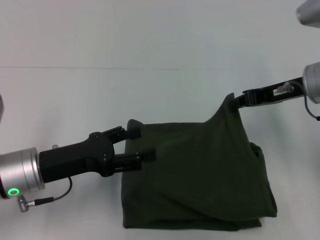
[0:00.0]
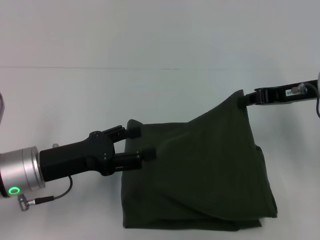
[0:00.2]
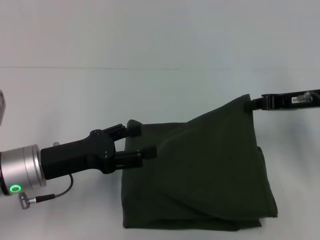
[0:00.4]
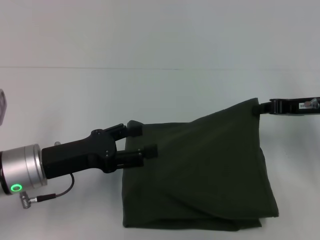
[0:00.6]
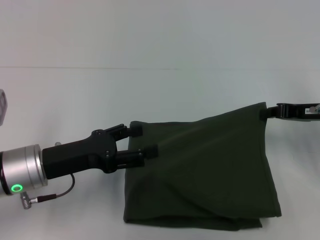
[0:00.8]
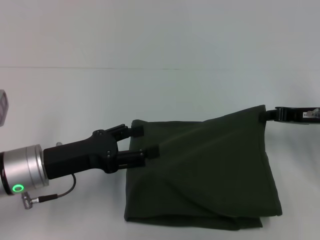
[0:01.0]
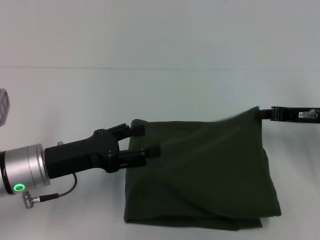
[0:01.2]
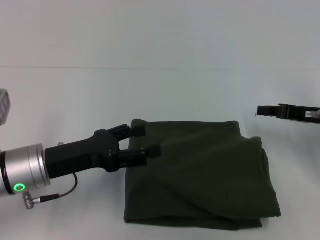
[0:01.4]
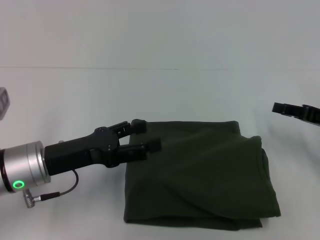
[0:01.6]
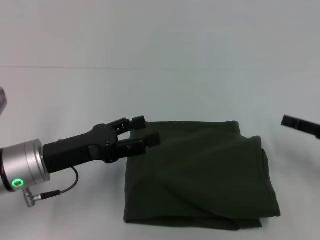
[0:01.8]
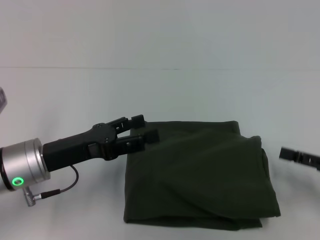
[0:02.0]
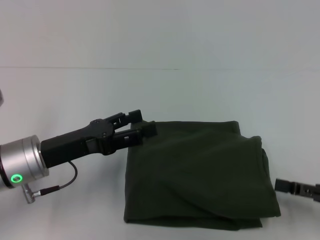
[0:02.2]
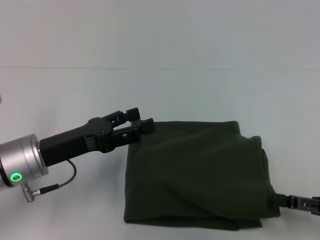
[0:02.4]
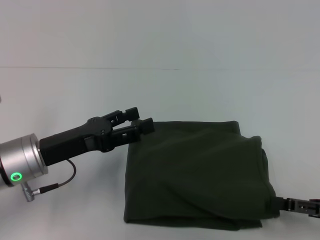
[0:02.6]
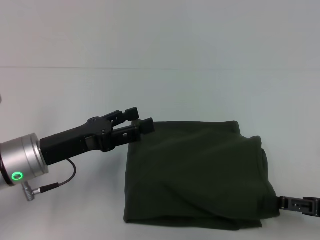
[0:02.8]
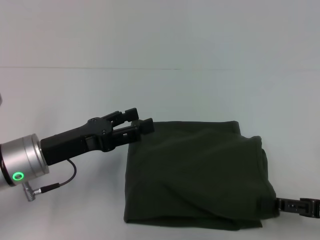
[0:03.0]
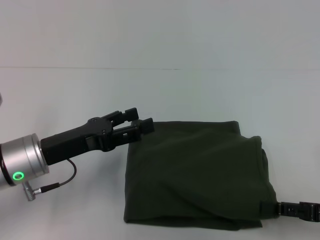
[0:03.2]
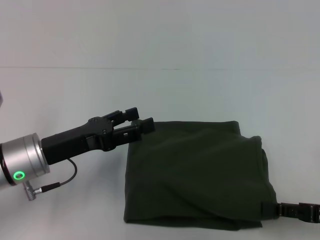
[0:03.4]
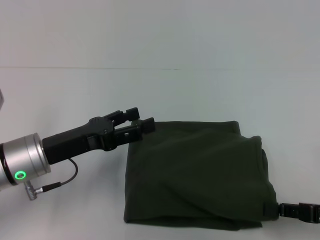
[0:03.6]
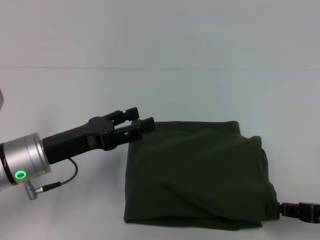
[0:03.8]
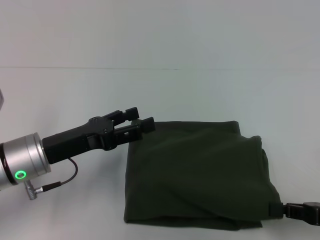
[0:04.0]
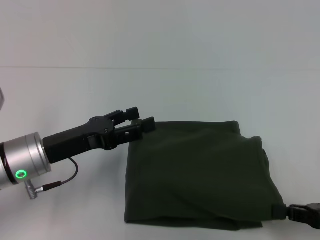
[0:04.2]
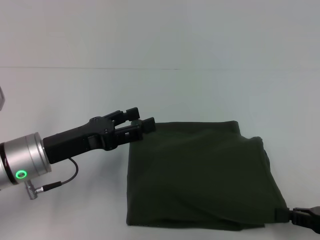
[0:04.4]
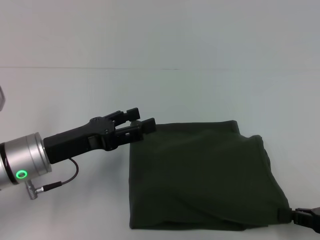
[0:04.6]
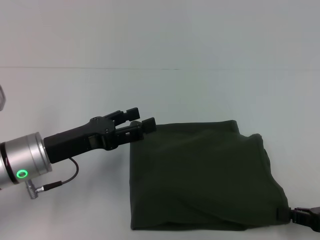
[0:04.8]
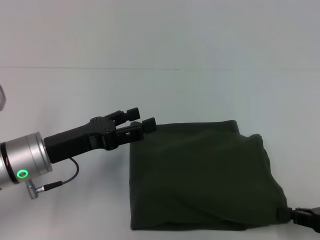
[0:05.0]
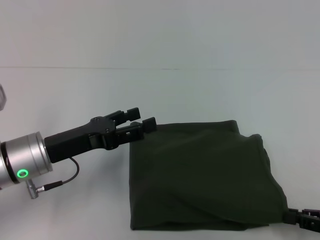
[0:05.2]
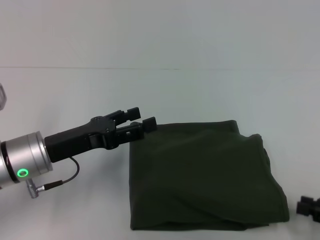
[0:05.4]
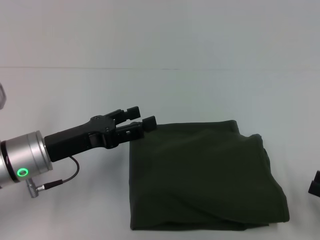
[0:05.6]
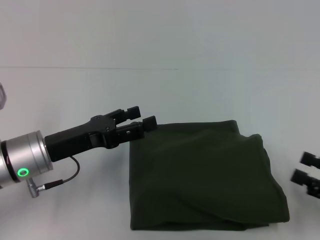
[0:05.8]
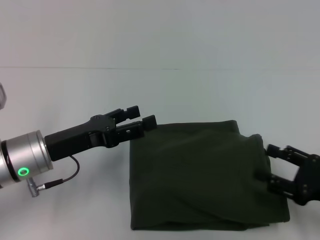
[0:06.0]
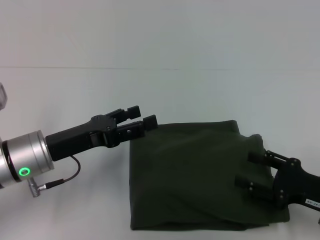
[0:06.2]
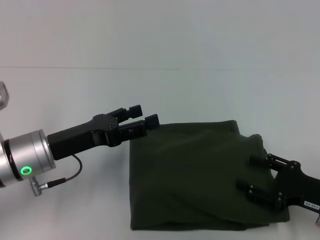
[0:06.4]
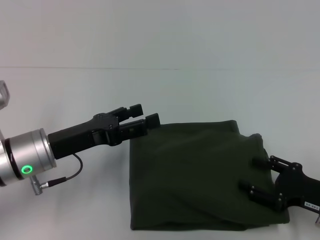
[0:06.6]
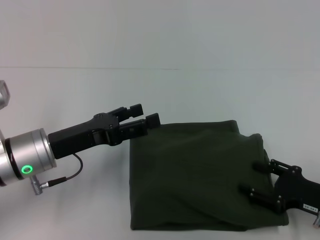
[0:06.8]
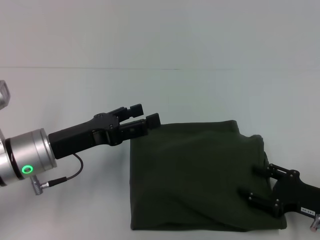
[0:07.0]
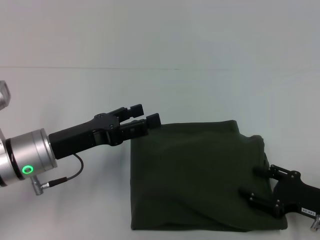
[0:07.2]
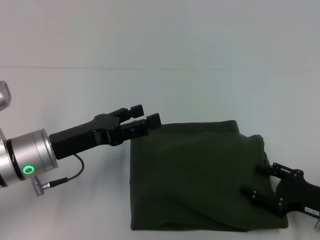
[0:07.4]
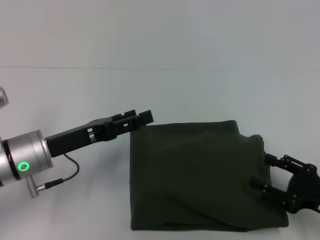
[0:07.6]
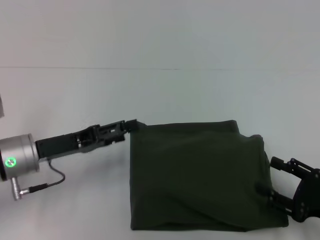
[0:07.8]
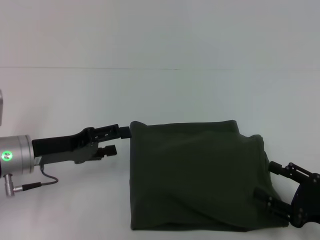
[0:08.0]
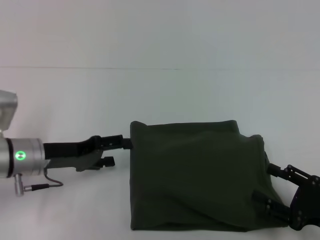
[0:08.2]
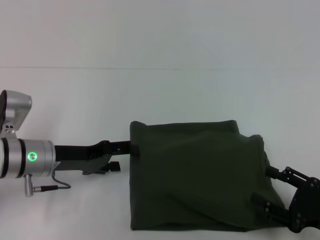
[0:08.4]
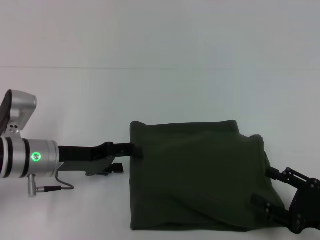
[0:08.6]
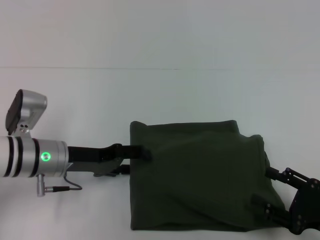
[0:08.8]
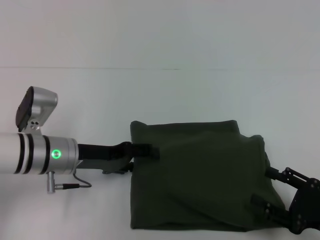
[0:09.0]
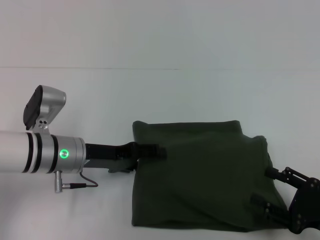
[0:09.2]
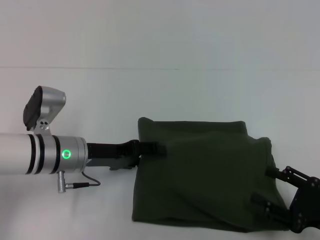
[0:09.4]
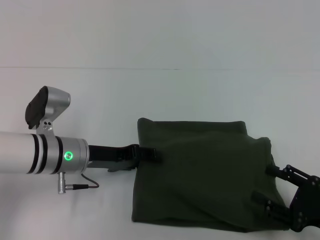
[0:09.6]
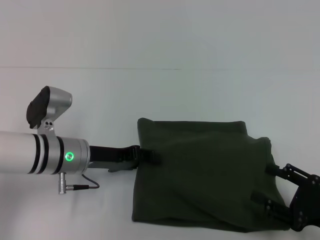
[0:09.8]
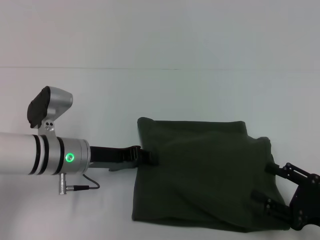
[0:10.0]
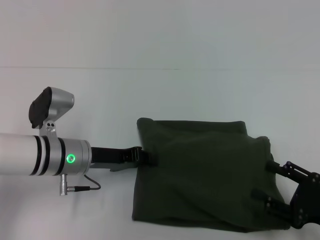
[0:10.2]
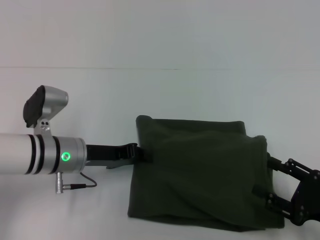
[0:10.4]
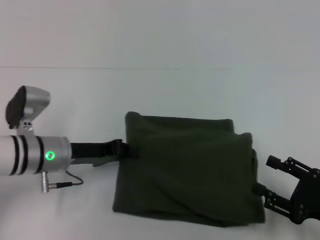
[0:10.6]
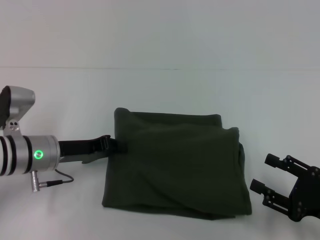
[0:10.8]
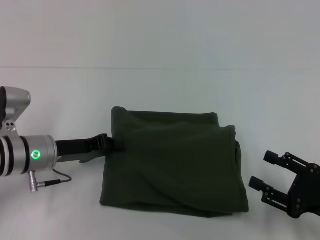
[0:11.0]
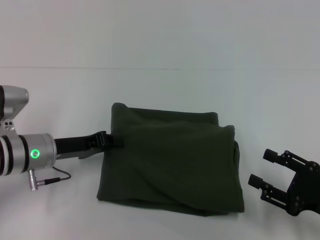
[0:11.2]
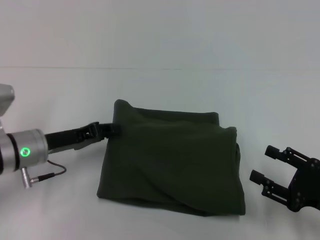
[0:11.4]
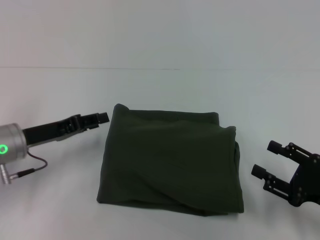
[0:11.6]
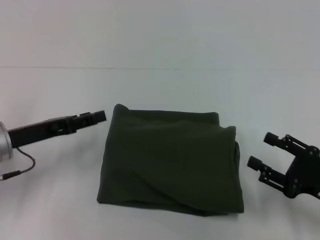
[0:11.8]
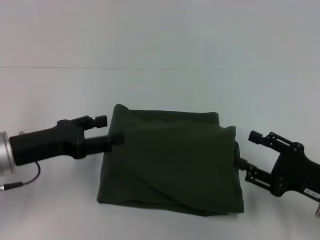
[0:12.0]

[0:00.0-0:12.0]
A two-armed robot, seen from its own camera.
0:00.0 to 0:01.6: The right gripper moves to the right and downward, some 15 cm.
0:01.6 to 0:03.0: The right gripper heads backward, covering about 10 cm, and opens.
0:03.0 to 0:04.4: The right gripper closes its fingers.
0:04.4 to 0:06.0: The right gripper opens its fingers.
0:06.0 to 0:07.6: The grippers stay close to where they were, moving slightly.
0:09.0 to 0:10.4: The left gripper closes its fingers.
0:10.4 to 0:12.0: The left gripper heads to the left, covering roughly 10 cm, and opens.

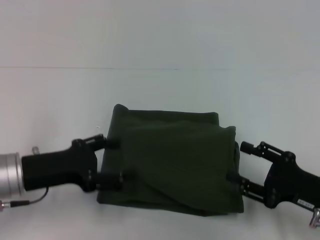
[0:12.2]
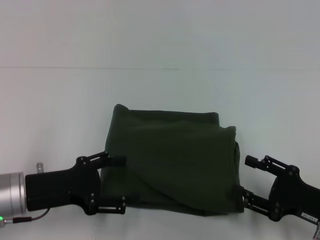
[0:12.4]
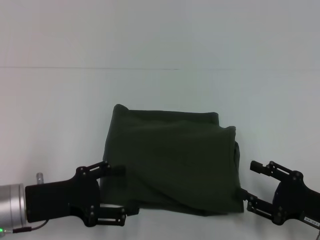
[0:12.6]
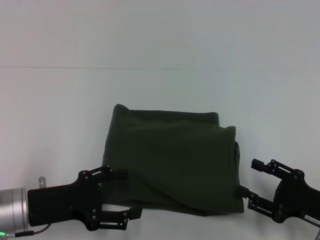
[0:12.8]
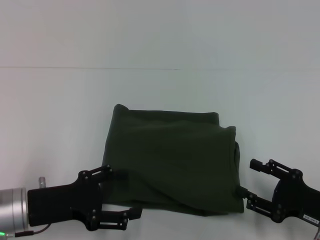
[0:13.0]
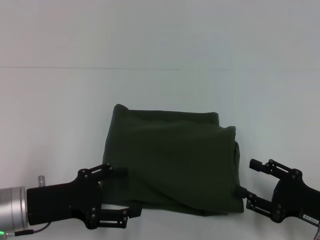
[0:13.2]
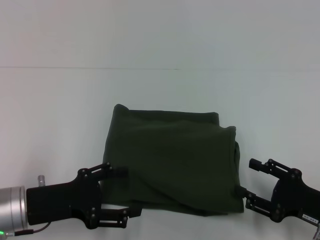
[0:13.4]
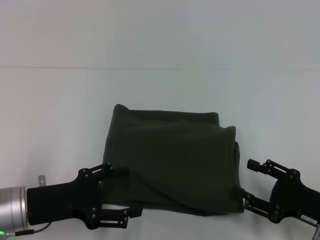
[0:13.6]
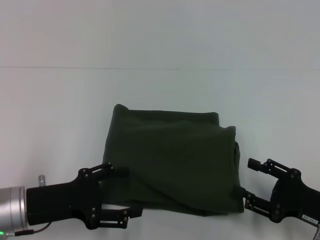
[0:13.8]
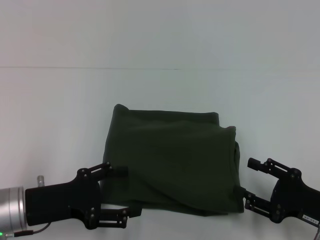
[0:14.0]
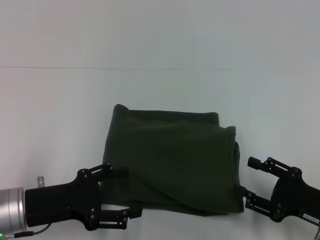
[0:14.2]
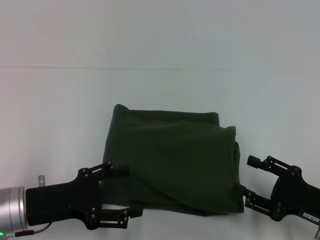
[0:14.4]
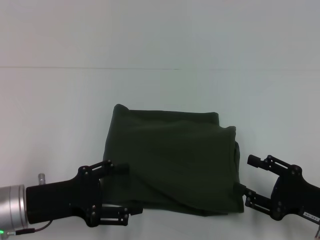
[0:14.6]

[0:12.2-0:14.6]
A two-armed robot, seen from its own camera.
0:12.2 to 0:13.4: The grippers move only a little.
0:13.4 to 0:14.6: The two grippers keep their place.

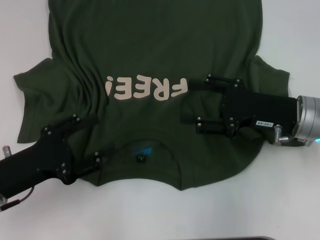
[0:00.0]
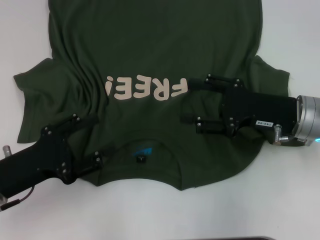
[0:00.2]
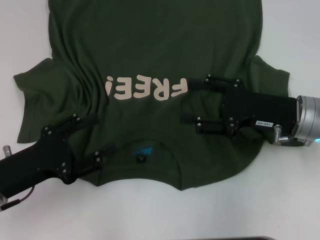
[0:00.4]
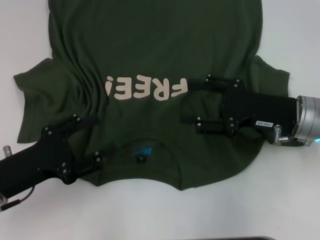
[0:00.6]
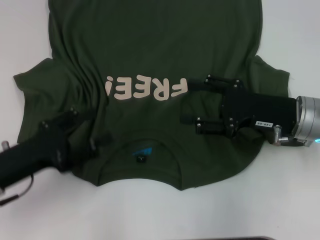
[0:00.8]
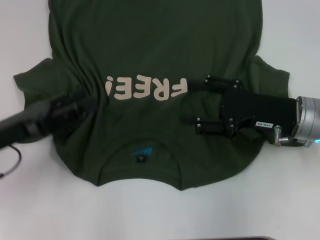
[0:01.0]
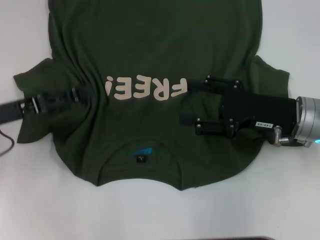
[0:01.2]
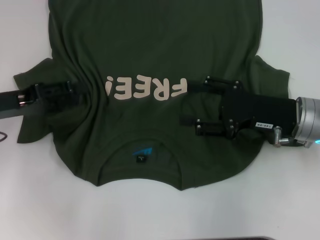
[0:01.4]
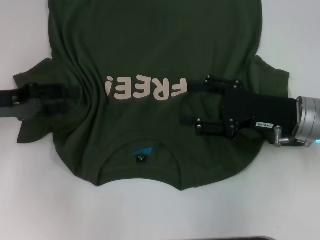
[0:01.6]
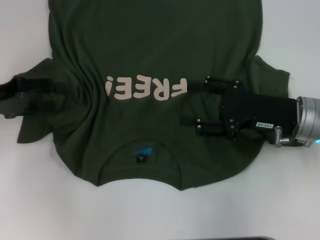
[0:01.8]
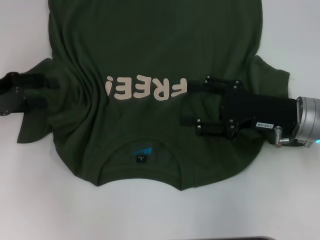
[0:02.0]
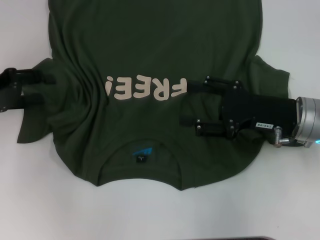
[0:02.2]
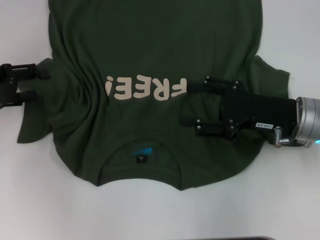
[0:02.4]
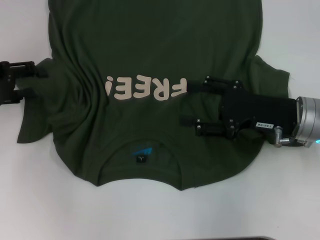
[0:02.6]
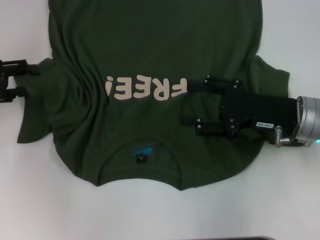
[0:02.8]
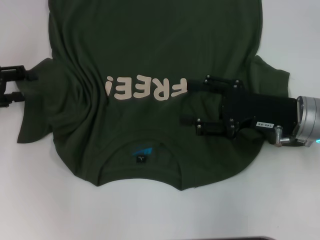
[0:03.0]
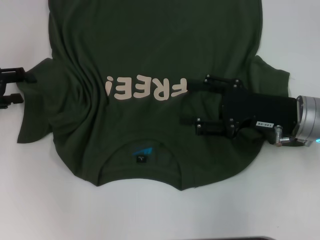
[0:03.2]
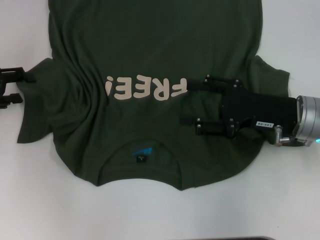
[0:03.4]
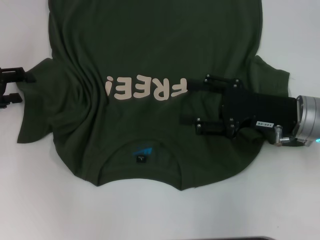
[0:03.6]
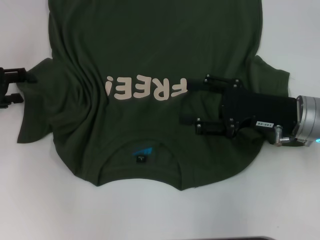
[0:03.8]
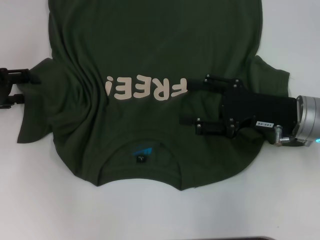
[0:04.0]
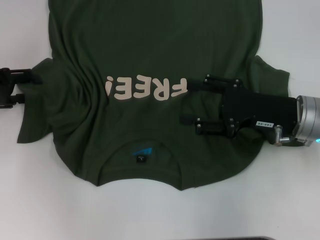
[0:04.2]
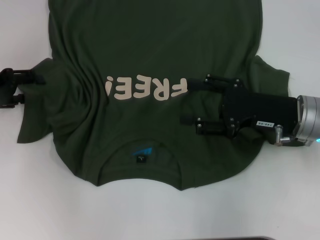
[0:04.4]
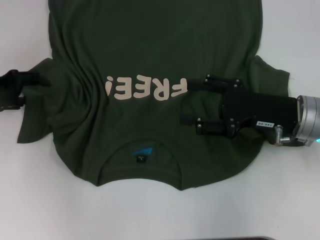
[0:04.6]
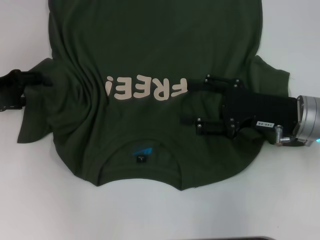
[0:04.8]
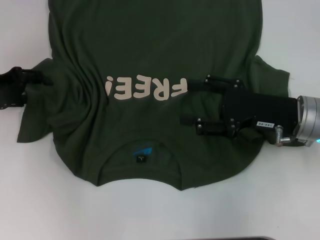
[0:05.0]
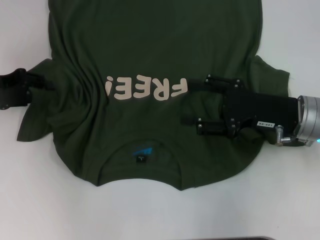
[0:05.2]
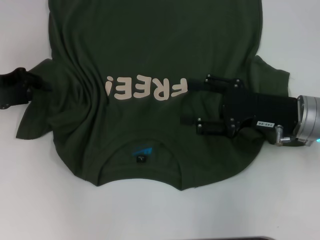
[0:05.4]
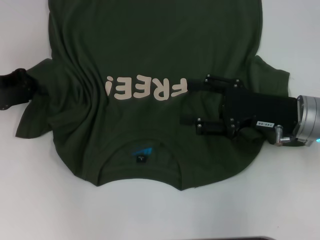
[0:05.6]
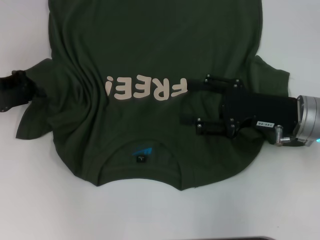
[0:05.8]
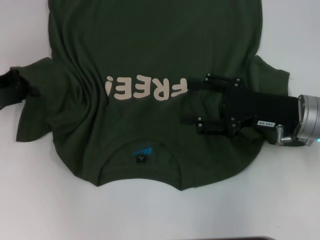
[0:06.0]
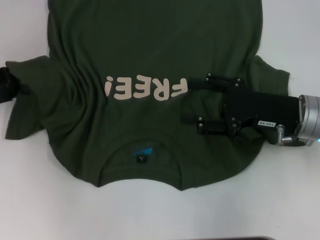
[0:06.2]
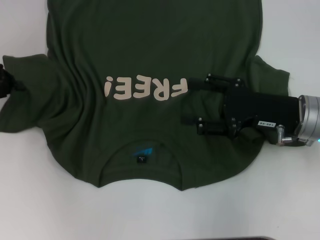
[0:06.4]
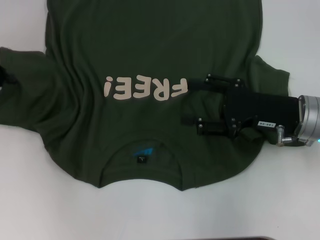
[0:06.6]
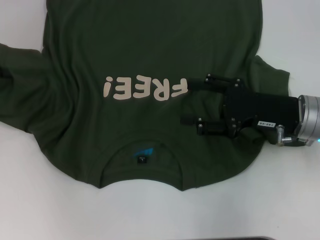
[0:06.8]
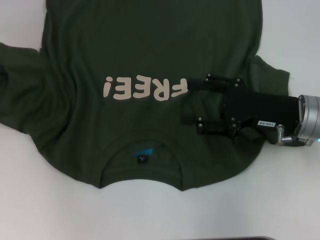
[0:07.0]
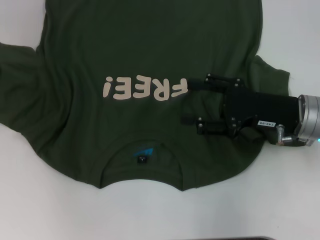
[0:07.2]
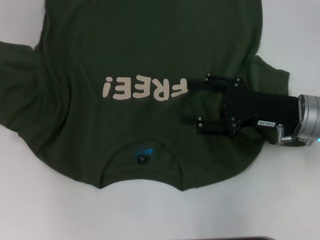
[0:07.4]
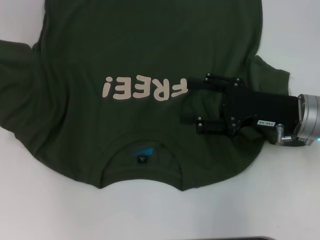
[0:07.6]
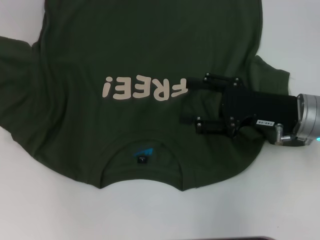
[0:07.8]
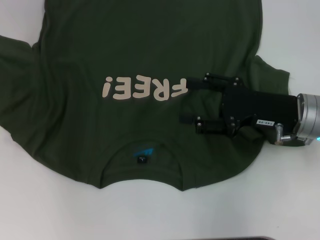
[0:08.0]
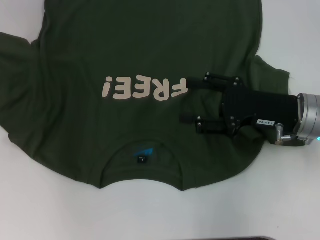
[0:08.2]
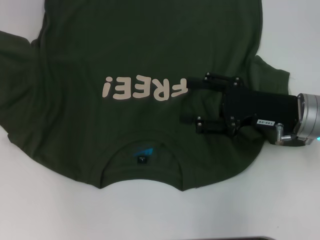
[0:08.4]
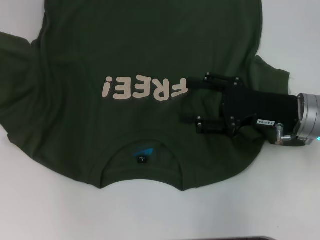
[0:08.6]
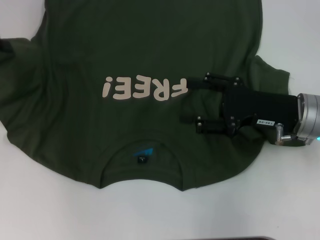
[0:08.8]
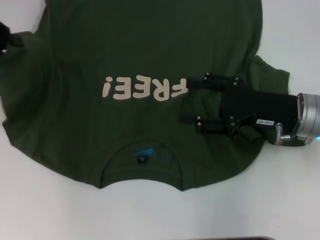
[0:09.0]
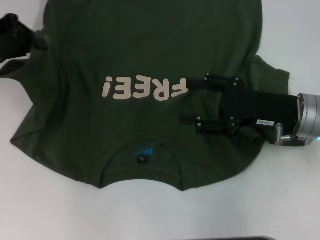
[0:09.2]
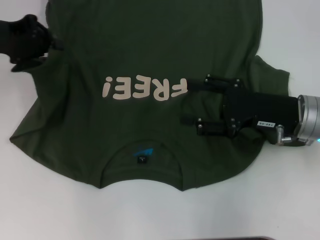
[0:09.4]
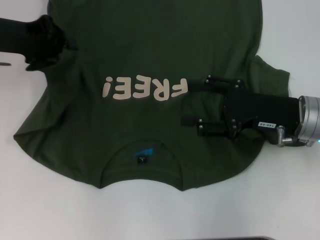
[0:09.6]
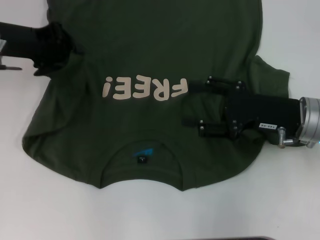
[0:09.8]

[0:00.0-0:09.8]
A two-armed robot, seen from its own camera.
0:00.0 to 0:01.4: The left gripper moves forward and upward, some 10 cm.
0:01.4 to 0:02.8: The left gripper moves approximately 5 cm.
0:02.8 to 0:04.2: The grippers make only small movements.
0:04.2 to 0:05.6: The left gripper closes.
0:05.6 to 0:07.0: The left gripper moves roughly 5 cm, and closes its fingers.
0:07.0 to 0:08.4: The grippers move only a little.
0:08.4 to 0:09.8: The left gripper travels to the right by roughly 10 cm.
